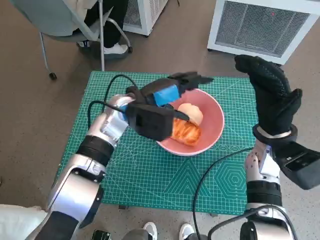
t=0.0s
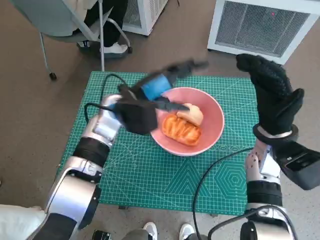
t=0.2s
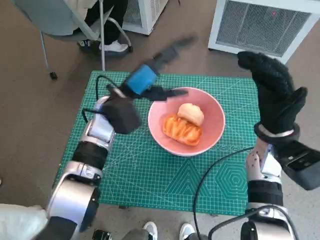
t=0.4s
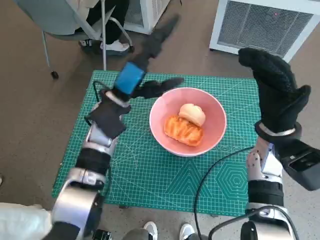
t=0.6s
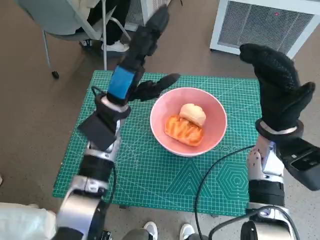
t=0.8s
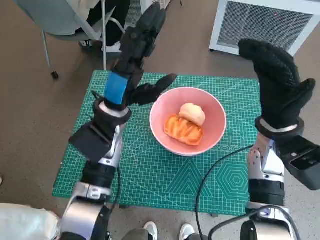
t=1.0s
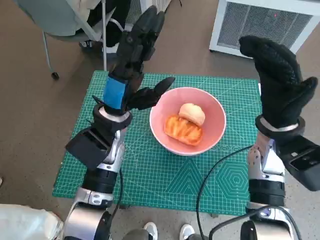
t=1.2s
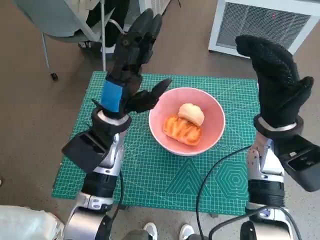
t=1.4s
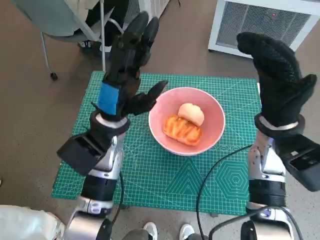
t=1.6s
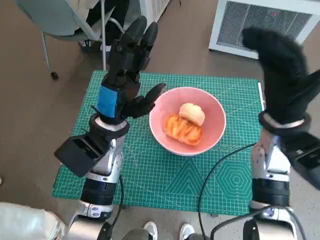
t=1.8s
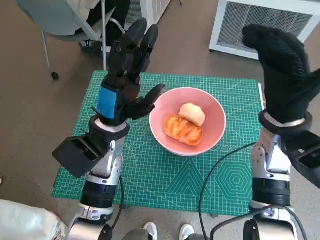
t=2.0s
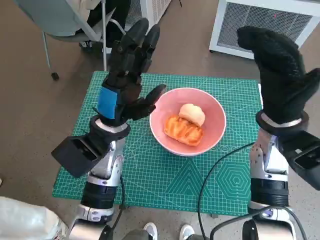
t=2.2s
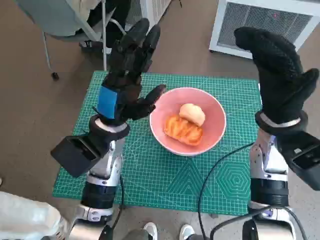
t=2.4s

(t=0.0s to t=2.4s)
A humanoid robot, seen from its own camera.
Task of the whole recording: Push the bowl to the center of the table and put the bread into the bowl.
t=0.0s - t=1.2s: The left hand moves approximately 5 cm.
t=1.2s - t=2.4s: There are only small adjustments of the hands.

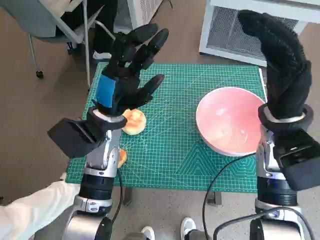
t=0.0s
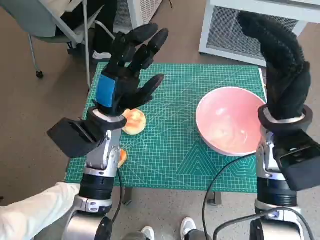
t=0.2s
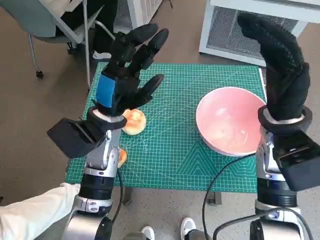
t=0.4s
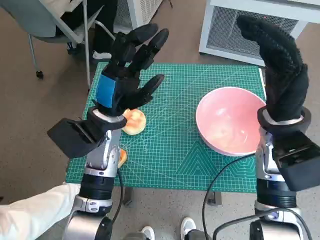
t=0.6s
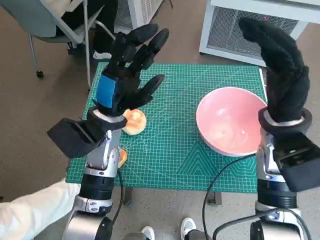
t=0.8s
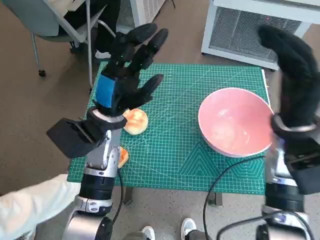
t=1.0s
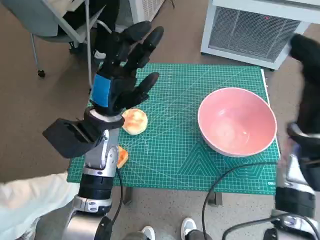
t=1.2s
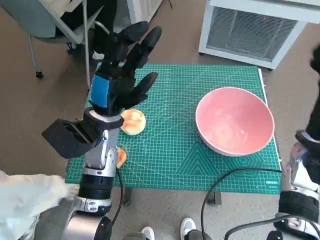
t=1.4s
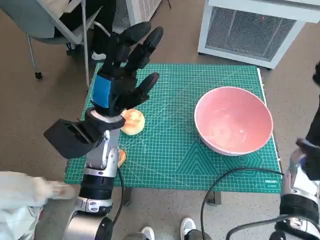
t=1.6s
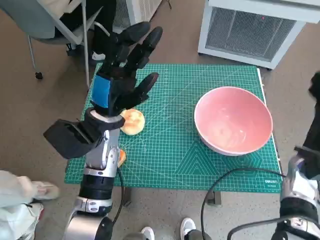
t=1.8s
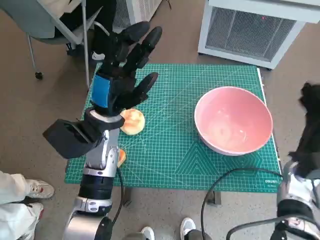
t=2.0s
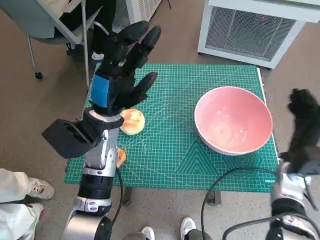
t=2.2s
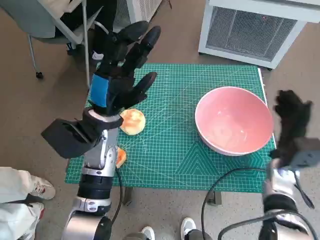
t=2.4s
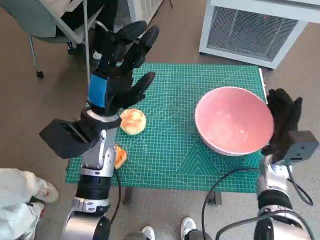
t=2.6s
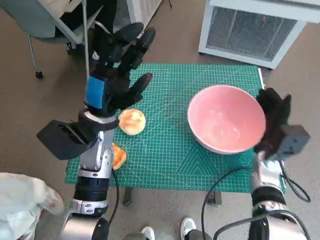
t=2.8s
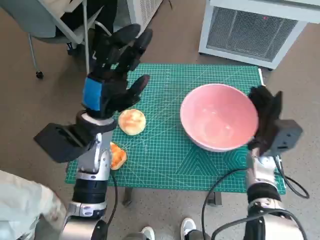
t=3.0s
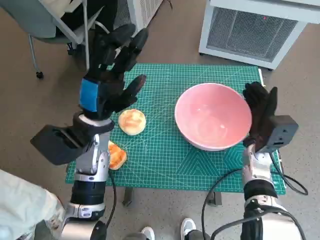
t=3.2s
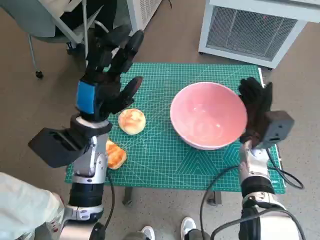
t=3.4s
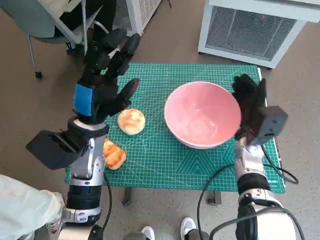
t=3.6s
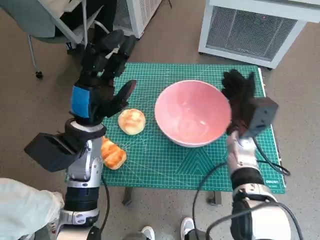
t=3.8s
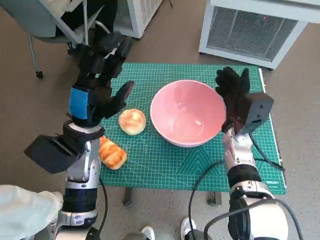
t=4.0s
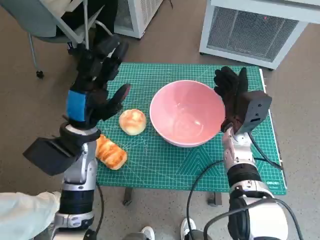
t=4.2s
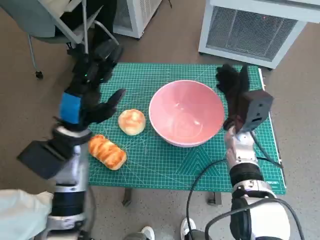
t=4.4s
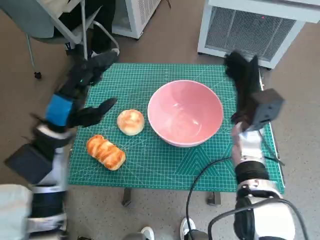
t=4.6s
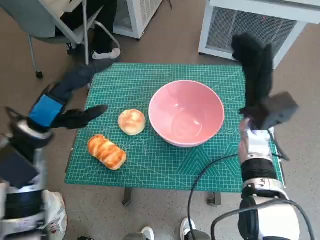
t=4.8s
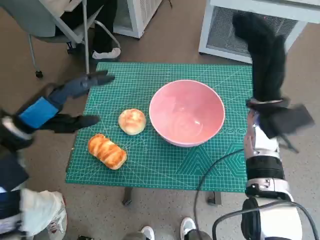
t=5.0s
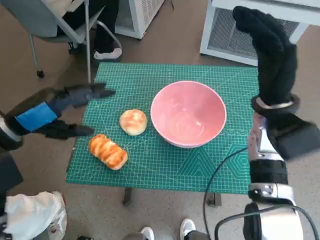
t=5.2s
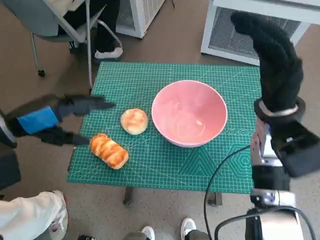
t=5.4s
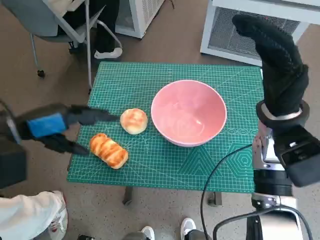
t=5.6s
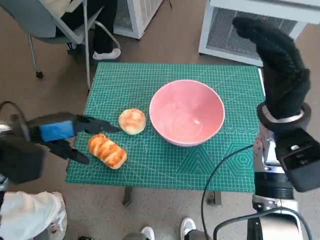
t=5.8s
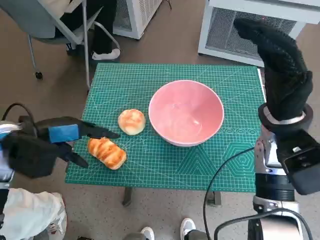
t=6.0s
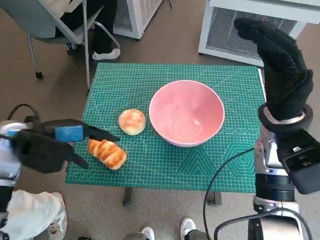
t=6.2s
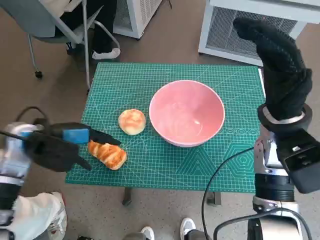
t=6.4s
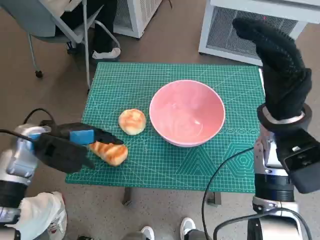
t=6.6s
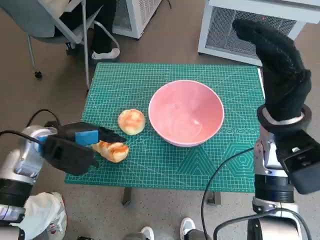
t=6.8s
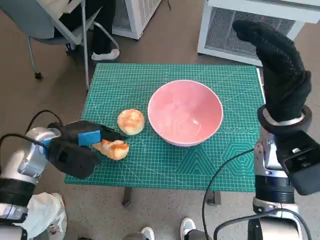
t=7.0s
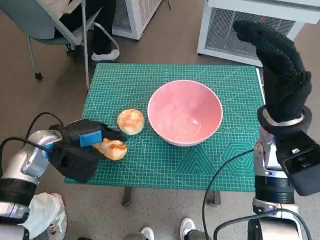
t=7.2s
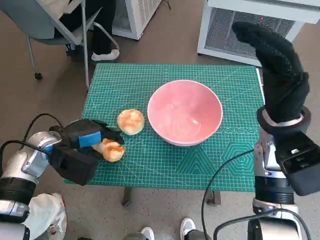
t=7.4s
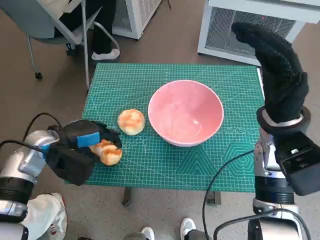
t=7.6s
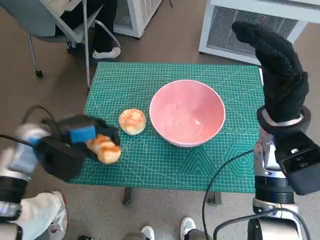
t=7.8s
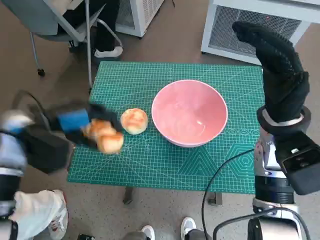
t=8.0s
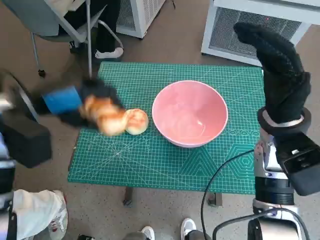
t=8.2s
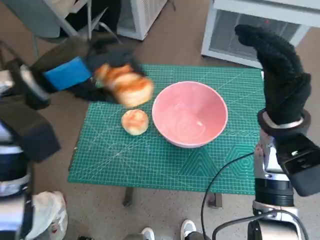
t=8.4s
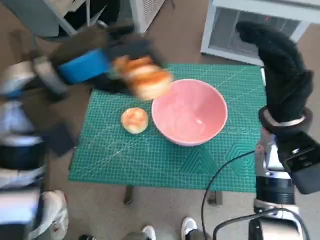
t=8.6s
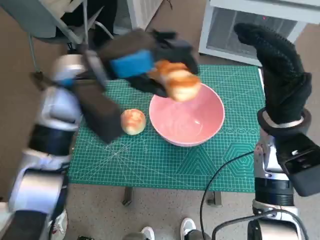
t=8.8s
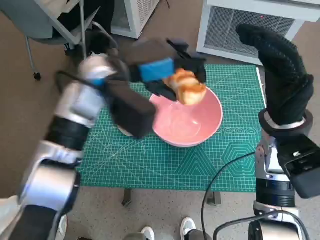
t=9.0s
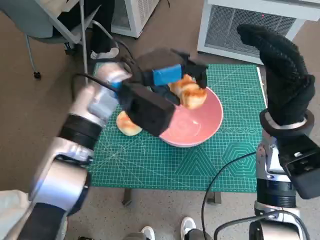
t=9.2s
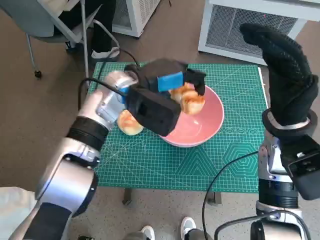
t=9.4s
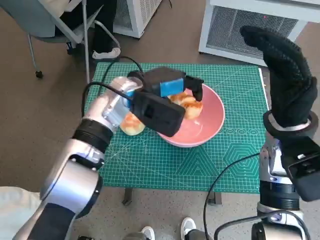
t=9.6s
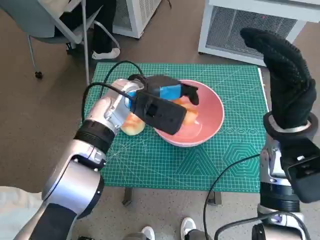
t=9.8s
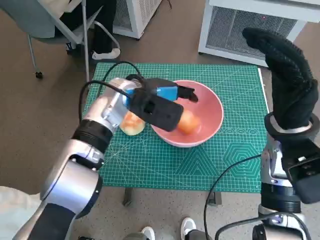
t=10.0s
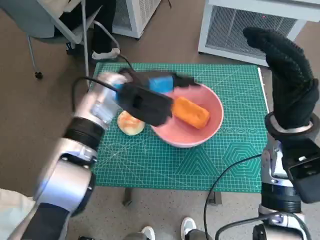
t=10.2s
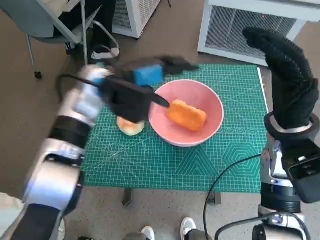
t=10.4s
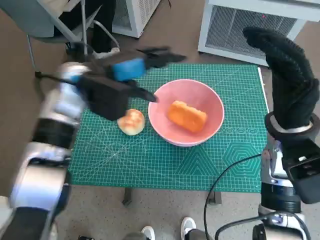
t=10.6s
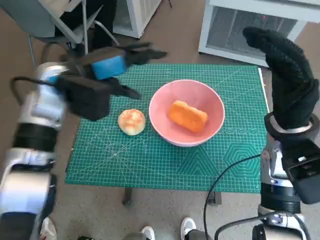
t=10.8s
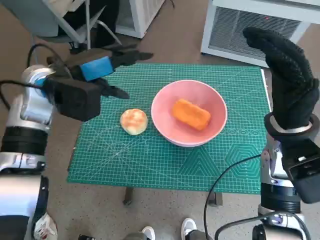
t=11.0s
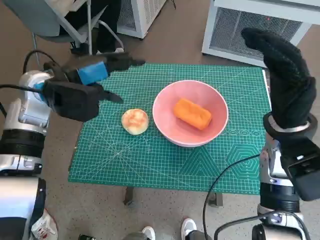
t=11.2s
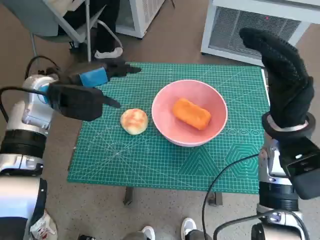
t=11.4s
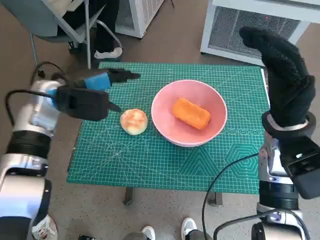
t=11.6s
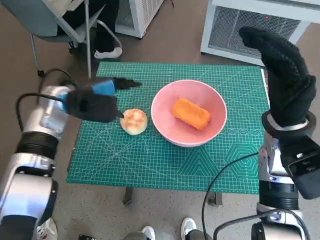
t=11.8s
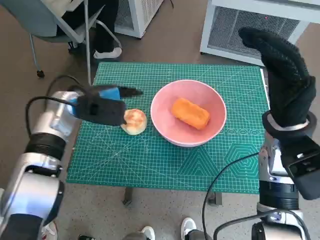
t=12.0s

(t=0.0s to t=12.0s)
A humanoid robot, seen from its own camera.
Task of the whole recording: Push the bowl to the center of the table and put the bread into the bowl.
Step, t=0.0s - t=4.6s: Move the pink bowl to the center of table with right hand.
Step, t=4.8s - t=7.4s: Grasp the long bread with left hand.
Step, t=7.6s - t=10.2s: Place the long bread in pink bowl with left hand.
t=1.6s - t=3.0s: The right hand shifts roughly 10 cm downward and to the left.
t=3.0s - t=4.4s: The right hand heads to the left, covering about 5 cm.
t=4.4s - t=6.0s: The right hand is displaced upward by approximately 10 cm, while the left hand heads to the left, covering roughly 10 cm.
t=6.0s - t=7.6s: The left hand heads downward, covering some 5 cm.
t=7.6s - t=9.0s: The left hand shifts some 20 cm to the right and upward.
t=10.4s - t=12.0s: The left hand moves to the left and downward, some 10 cm.

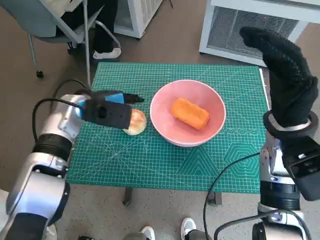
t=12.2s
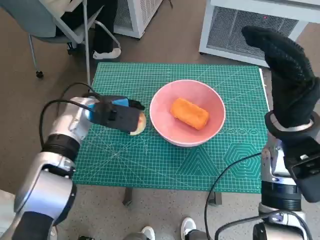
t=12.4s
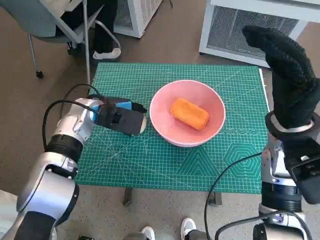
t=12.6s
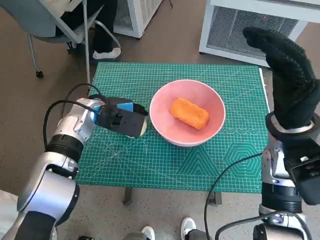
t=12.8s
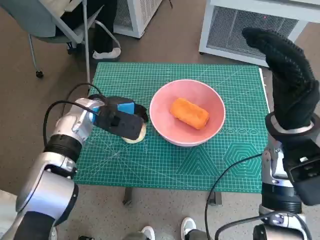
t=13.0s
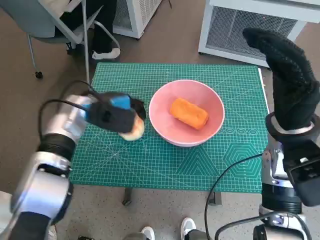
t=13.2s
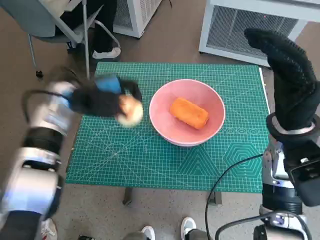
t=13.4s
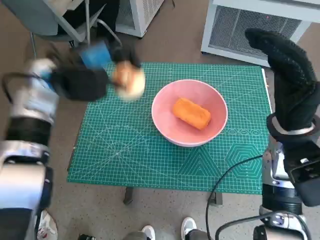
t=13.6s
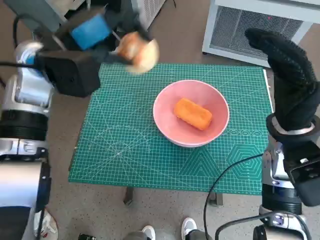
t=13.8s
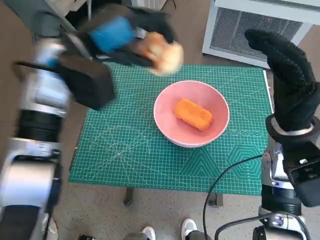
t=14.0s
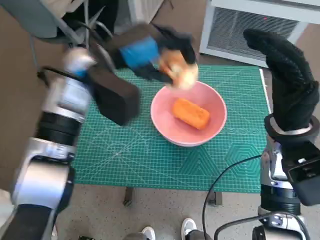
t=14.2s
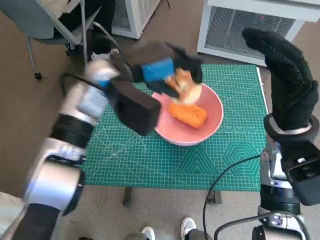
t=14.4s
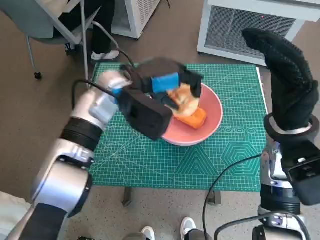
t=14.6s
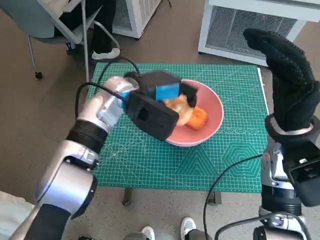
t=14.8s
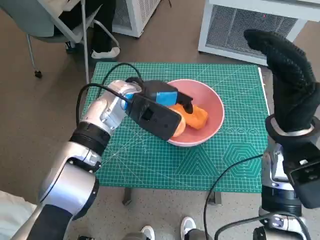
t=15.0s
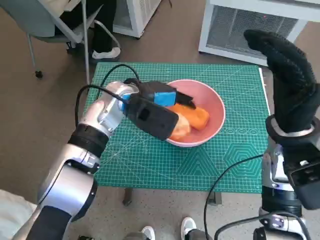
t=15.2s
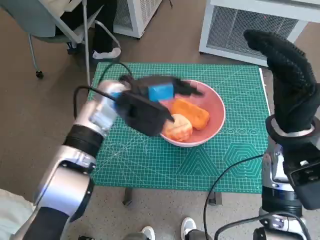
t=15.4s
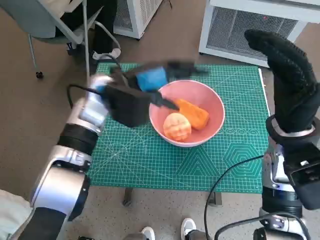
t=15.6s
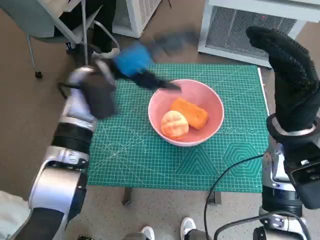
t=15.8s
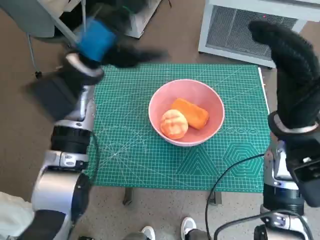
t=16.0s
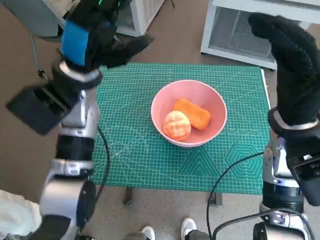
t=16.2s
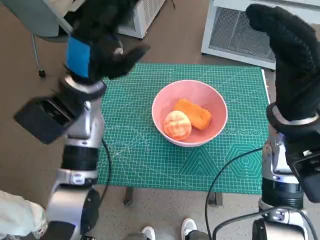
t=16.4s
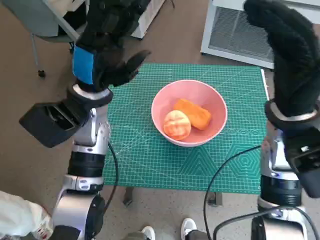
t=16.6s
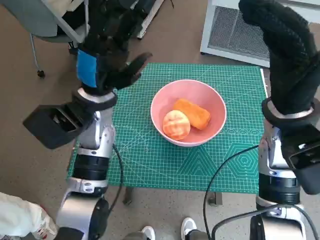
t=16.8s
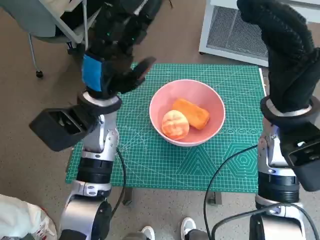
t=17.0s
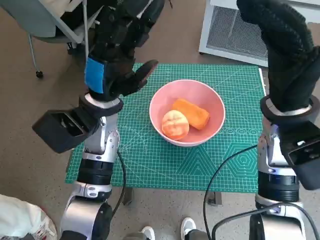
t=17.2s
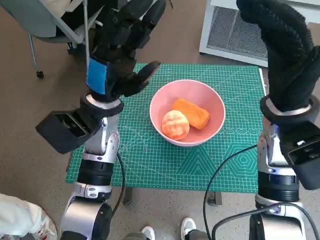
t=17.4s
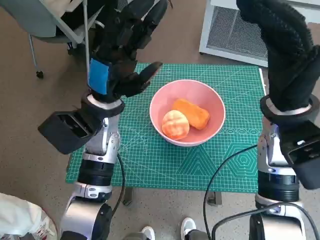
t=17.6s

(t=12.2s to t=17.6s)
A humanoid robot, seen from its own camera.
Task of the whole recording: Push the bowl to the center of the table and put the bread into the bowl.
Step, t=13.0s - t=15.4s: Place the round bread in pink bowl with left hand.
t=12.2s - t=13.6s: The left hand is displaced upward by about 5 cm.
t=13.6s - t=15.0s: The left hand travels to the right by approximately 10 cm.
t=15.0s - t=16.2s: The left hand moves to the left and upward, some 10 cm.
t=16.2s - t=17.6s: The left hand moves downward, roughly 5 cm.
